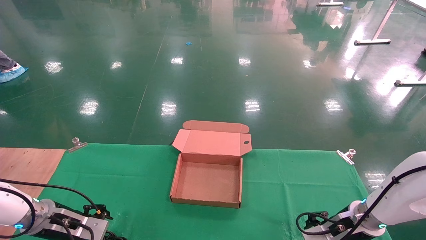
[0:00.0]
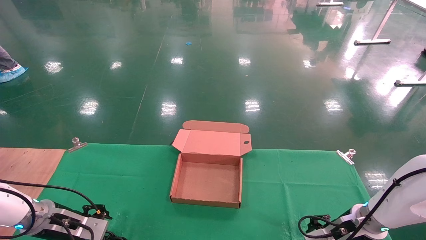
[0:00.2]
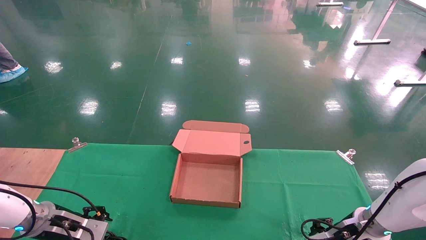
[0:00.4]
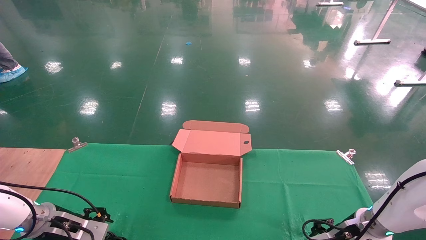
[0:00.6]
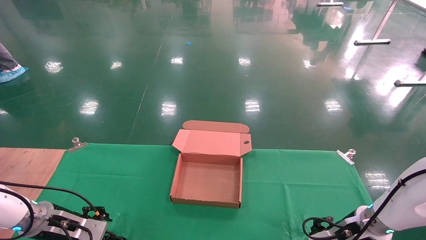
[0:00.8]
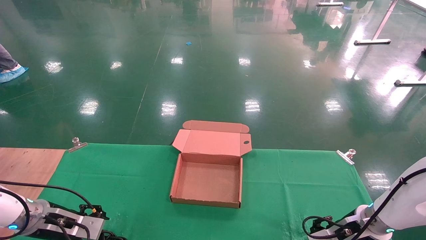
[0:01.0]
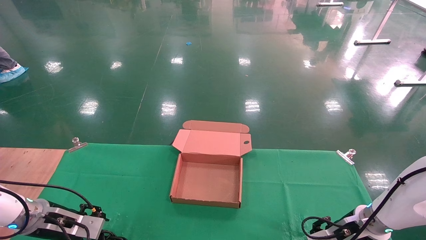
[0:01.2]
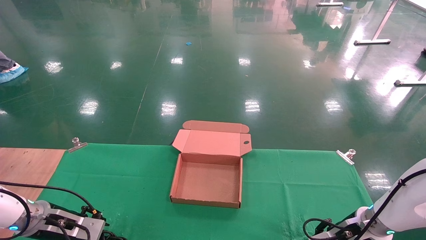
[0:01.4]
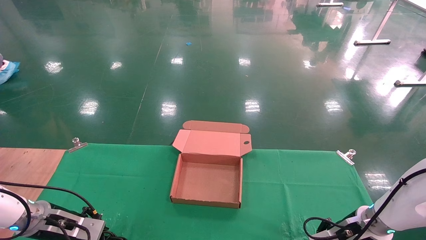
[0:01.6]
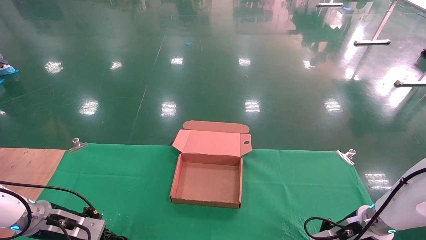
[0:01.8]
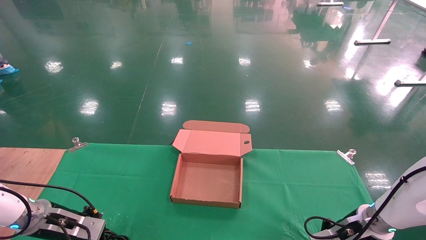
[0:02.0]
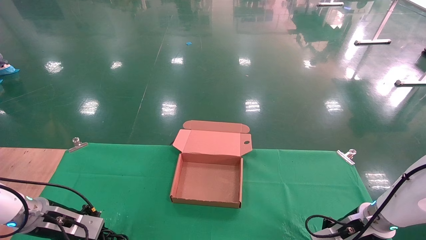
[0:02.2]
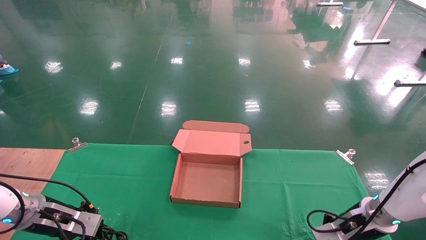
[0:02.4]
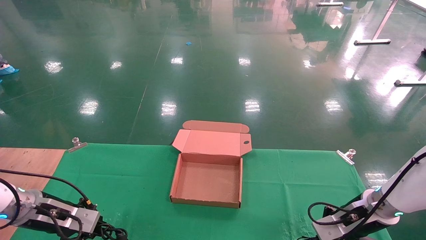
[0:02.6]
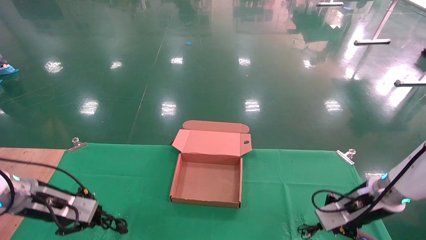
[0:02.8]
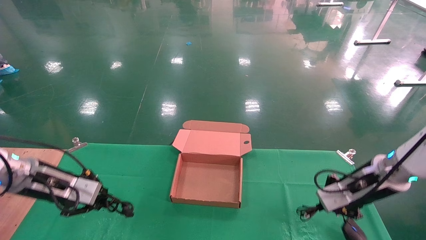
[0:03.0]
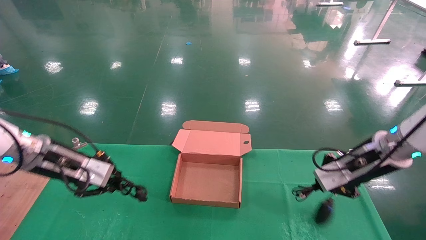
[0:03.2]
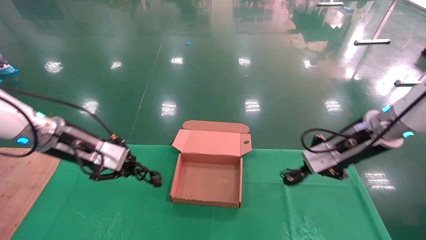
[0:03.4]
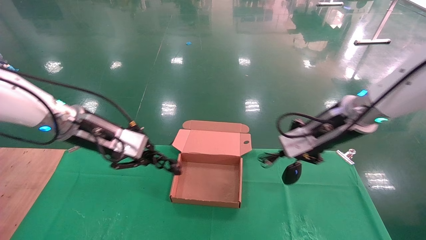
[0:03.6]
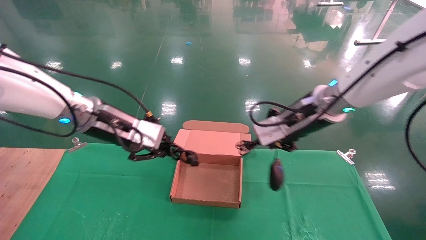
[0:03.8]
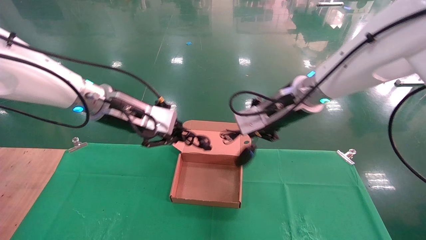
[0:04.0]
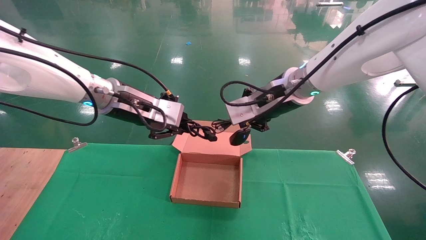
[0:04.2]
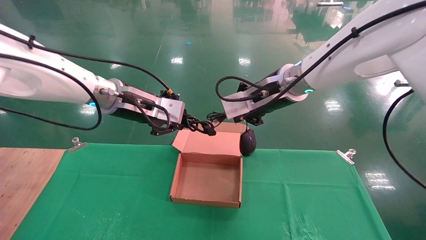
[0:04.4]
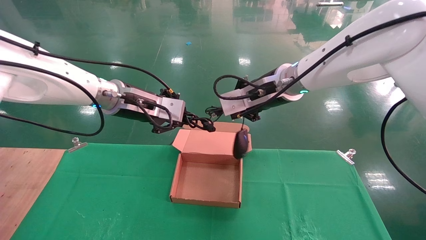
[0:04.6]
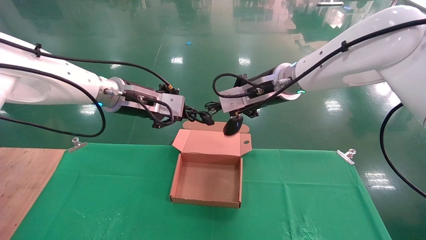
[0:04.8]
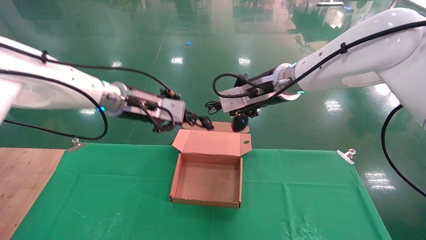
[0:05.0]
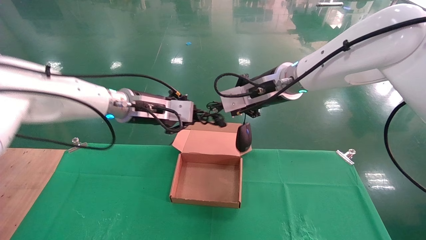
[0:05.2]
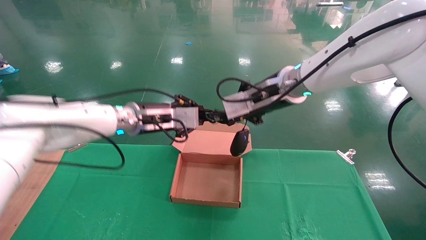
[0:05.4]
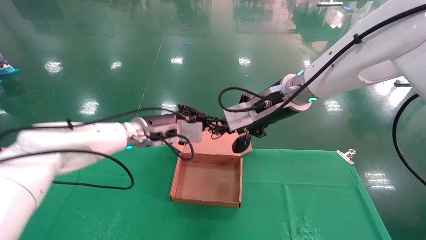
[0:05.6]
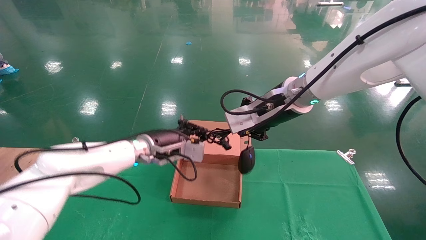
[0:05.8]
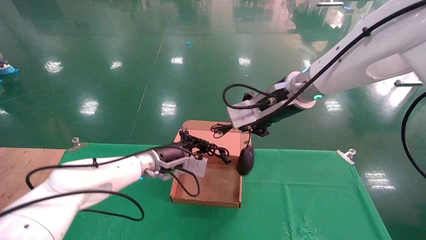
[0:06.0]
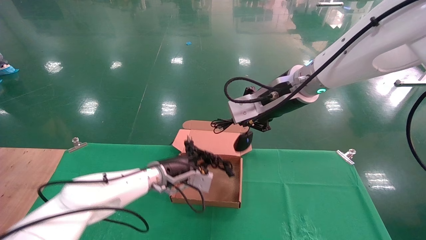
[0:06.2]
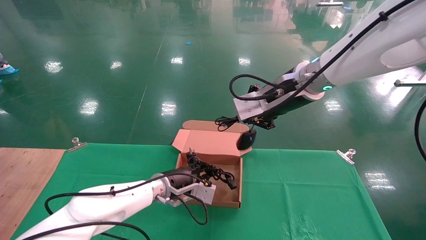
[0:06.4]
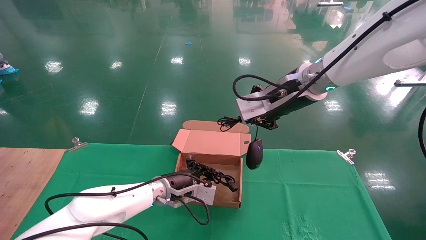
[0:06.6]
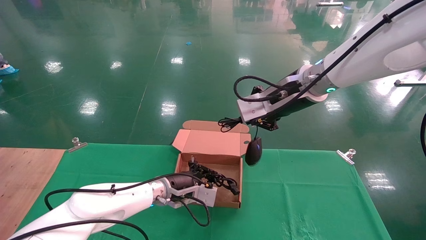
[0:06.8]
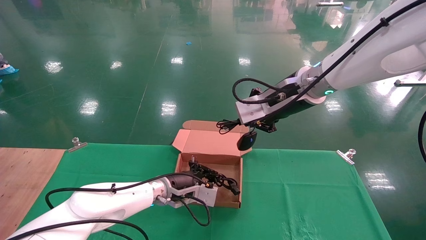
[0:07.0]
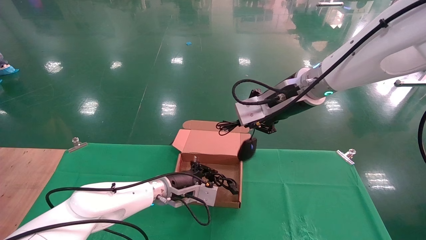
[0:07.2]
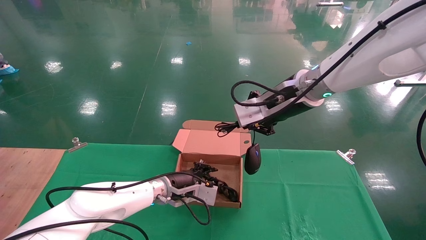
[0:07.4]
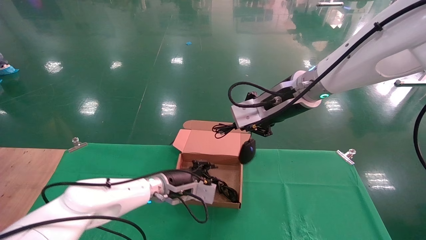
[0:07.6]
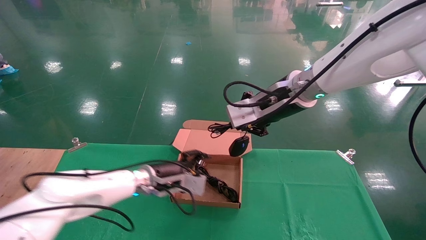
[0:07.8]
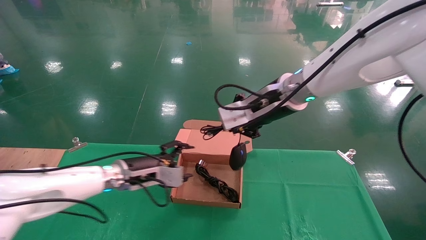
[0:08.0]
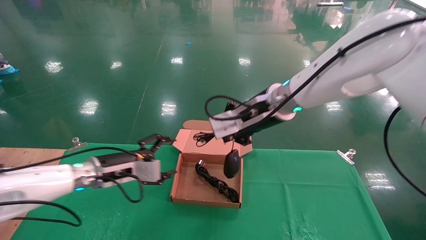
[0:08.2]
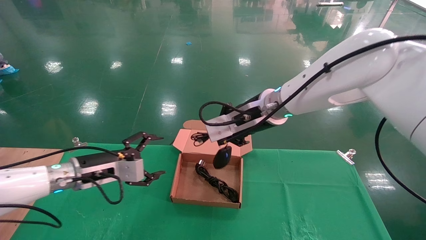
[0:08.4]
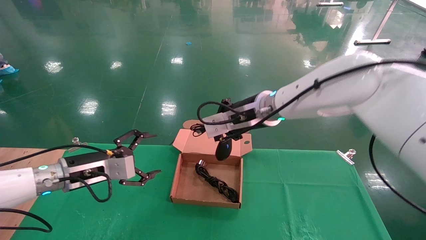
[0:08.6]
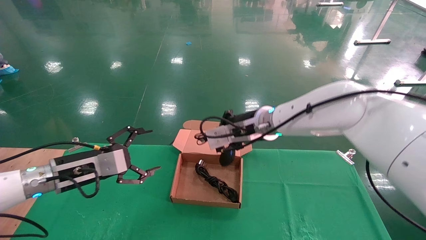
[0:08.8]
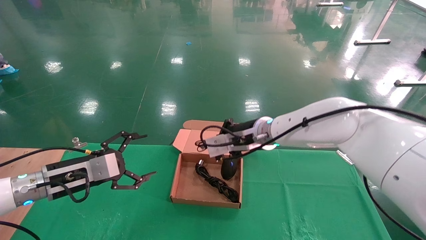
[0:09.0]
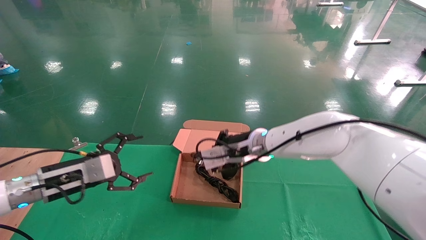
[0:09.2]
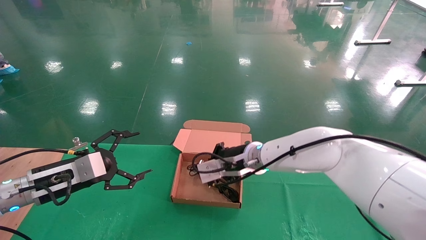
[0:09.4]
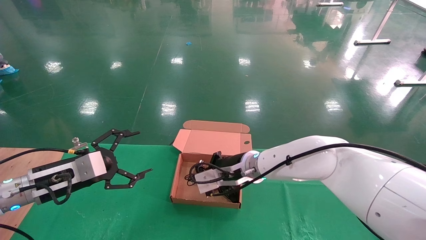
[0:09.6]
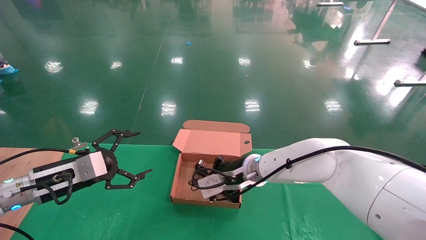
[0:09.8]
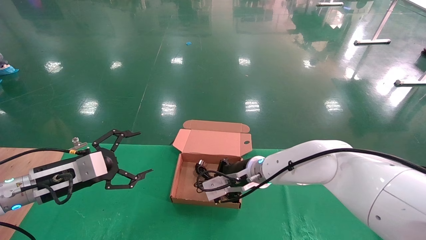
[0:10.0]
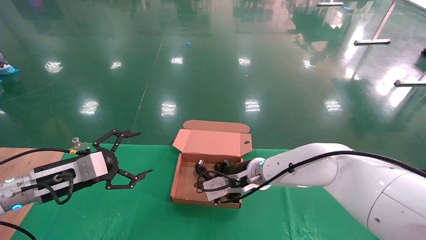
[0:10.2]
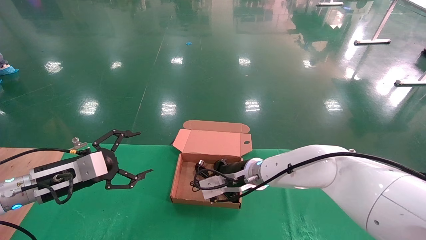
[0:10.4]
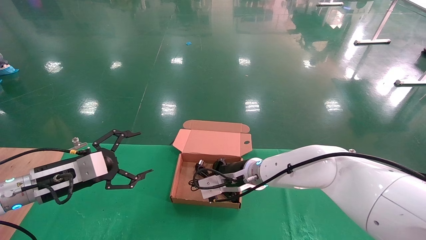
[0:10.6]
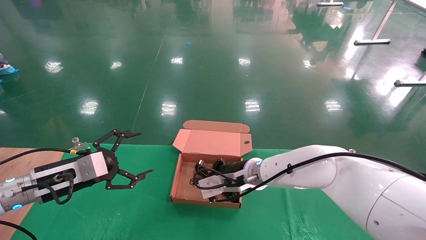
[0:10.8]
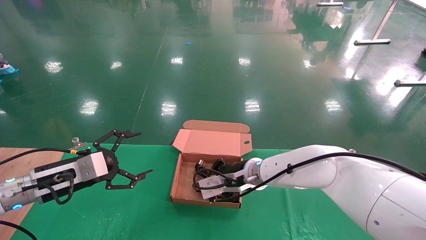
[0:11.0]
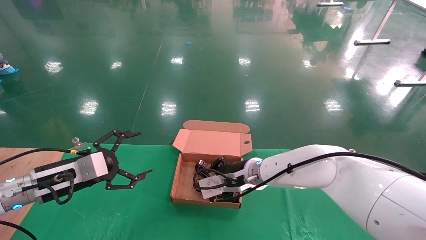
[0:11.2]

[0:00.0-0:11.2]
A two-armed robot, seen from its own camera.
Step, 0:00.0 to 0:03.8: Grab and lift both the mouse and power cord from the accessory packaging area at the same time.
0:00.0 to 0:01.6: The right gripper closes up. The left gripper closes up.
0:01.6 to 0:03.2: Both grippers travel together upward, some 20 cm. The right gripper closes; the left gripper closes.
0:03.2 to 0:04.8: The left gripper travels to the right and upward by some 15 cm. Meanwhile the right gripper travels to the left and upward by some 20 cm.
0:04.8 to 0:06.4: The left gripper goes some 25 cm downward.
0:06.4 to 0:08.0: The left gripper goes some 10 cm to the left, and opens its fingers.
0:08.0 to 0:09.6: The right gripper is displaced downward by roughly 15 cm. Meanwhile the left gripper travels to the left and backward by approximately 15 cm, and opens.
0:09.6 to 0:11.2: There are only small adjustments of the grippers.

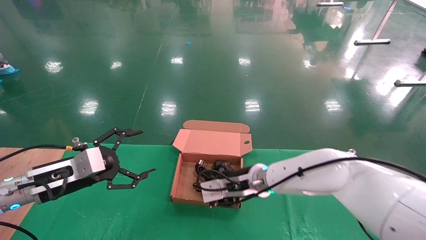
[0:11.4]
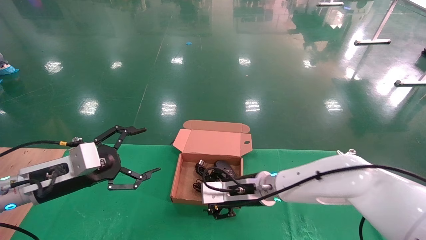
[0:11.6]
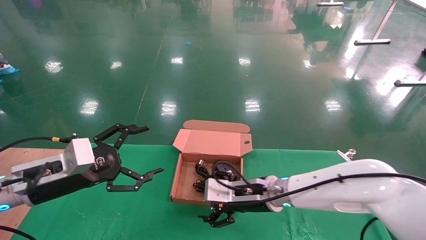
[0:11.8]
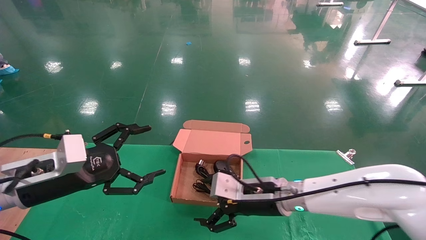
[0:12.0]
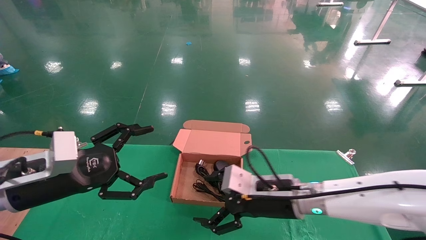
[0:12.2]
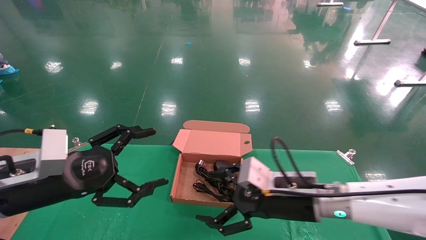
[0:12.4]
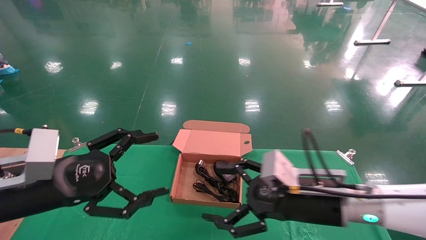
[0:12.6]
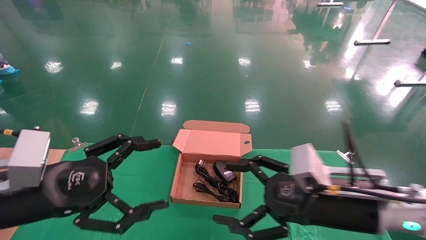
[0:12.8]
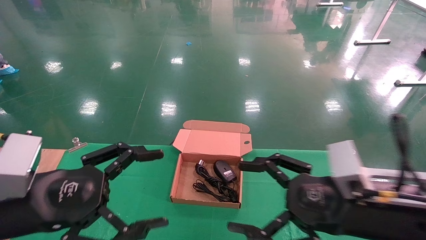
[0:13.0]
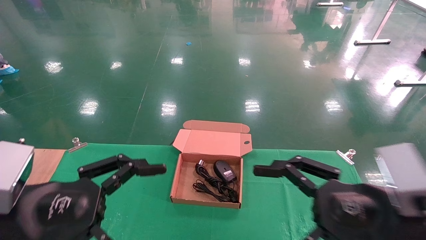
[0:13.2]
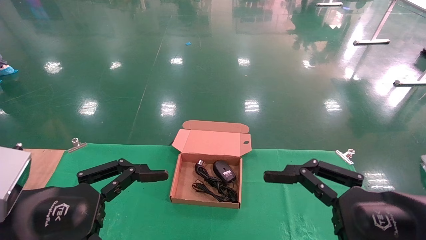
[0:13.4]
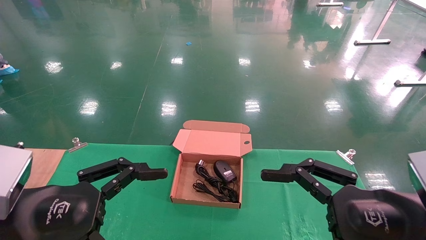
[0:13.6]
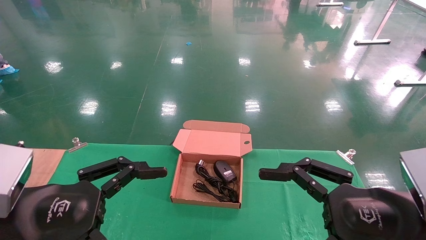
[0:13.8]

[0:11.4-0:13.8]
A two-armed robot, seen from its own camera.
0:11.4 to 0:12.6: The left gripper is displaced backward by about 10 cm, while the right gripper heads backward and to the right, covering approximately 20 cm, and opens.
0:12.6 to 0:13.8: The left gripper travels backward by about 5 cm, while the right gripper heads backward and to the right, covering about 15 cm.

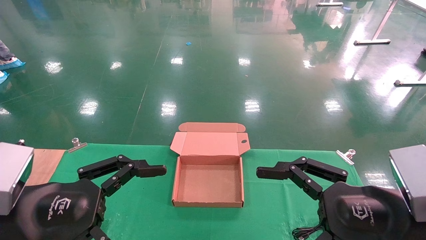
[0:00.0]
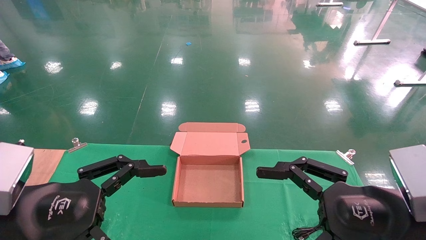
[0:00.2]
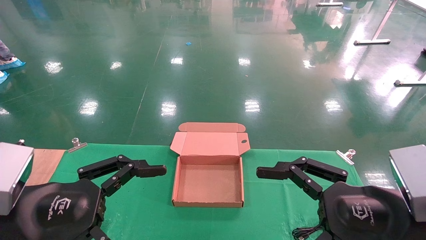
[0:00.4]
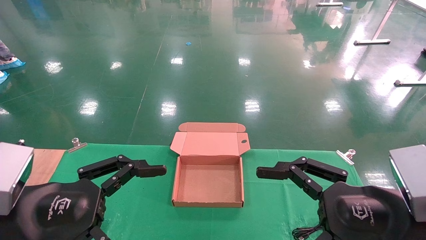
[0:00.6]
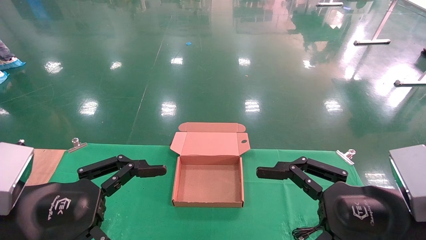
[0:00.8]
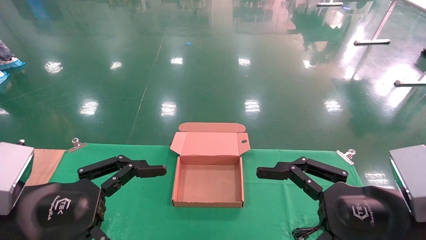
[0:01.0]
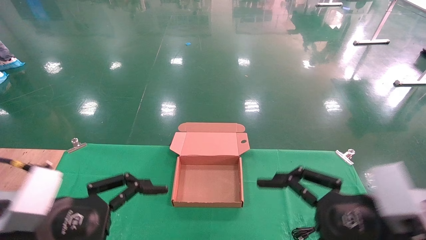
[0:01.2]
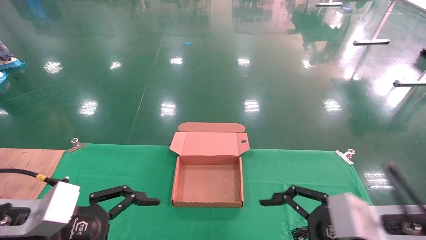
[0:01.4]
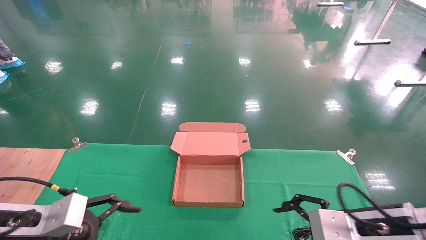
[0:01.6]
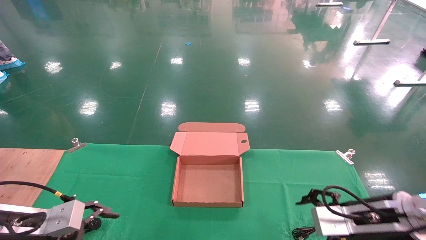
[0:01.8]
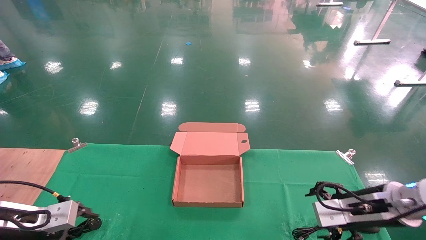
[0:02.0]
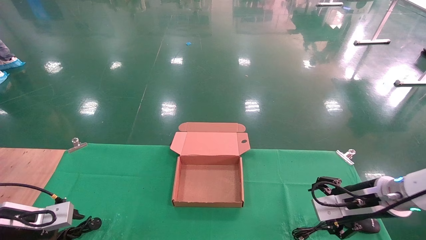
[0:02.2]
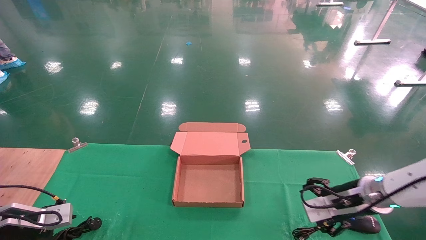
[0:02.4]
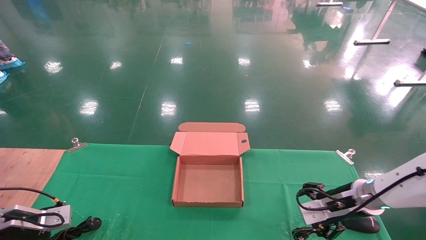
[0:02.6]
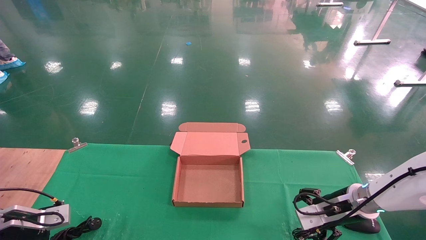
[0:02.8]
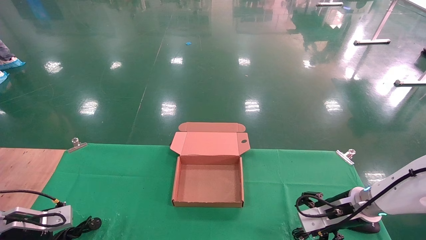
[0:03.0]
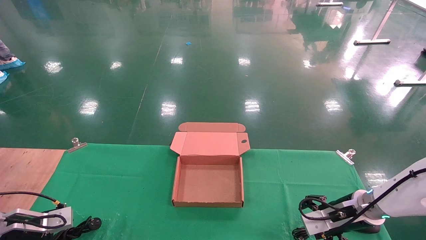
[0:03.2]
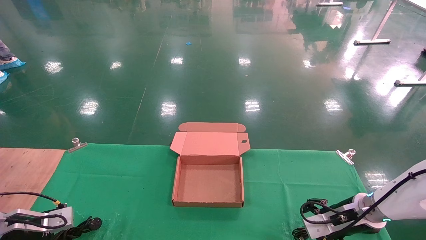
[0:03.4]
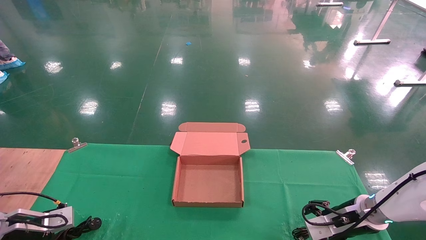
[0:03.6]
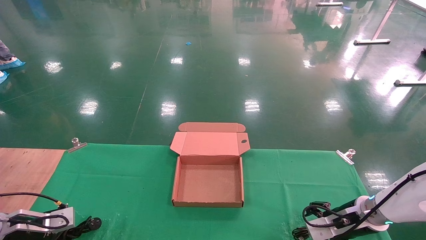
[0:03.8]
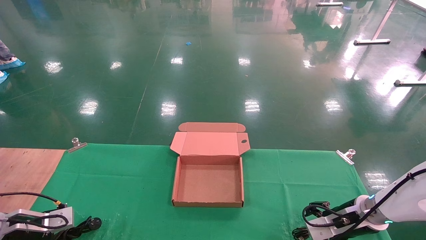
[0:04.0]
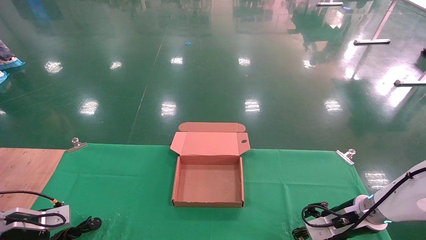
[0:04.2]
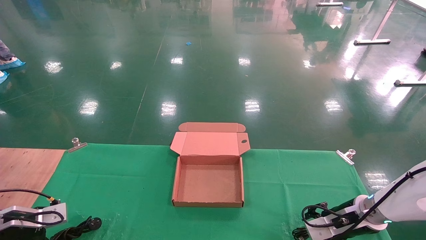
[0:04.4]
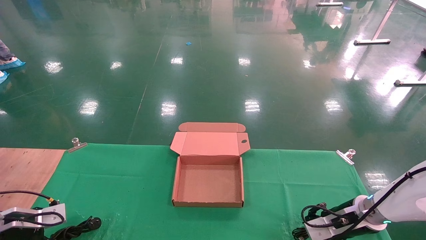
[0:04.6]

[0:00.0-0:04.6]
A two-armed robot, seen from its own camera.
0:00.0 to 0:01.6: The left gripper goes roughly 10 cm downward, forward and to the left, while the right gripper moves forward and downward, approximately 10 cm.
0:01.6 to 0:03.0: The left gripper travels to the left, forward and downward by roughly 20 cm. Meanwhile the right gripper heads forward and downward, covering approximately 15 cm.
0:03.0 to 0:04.6: The right gripper closes.
